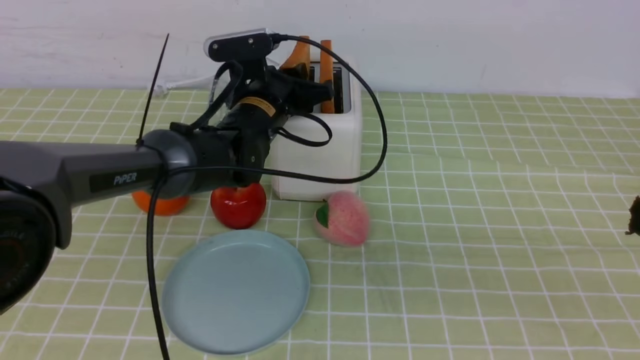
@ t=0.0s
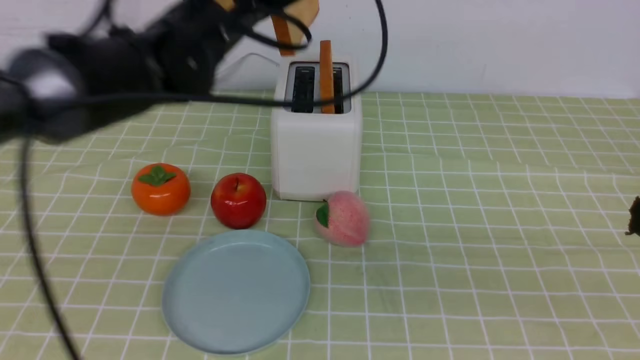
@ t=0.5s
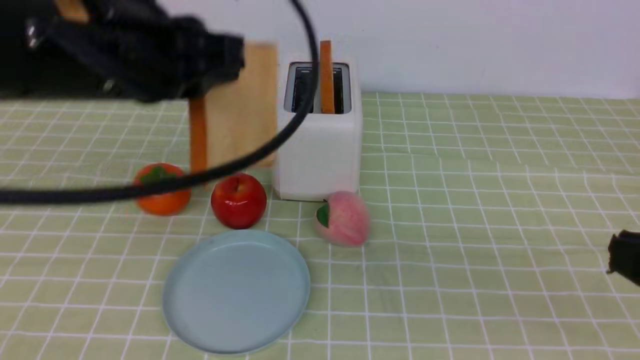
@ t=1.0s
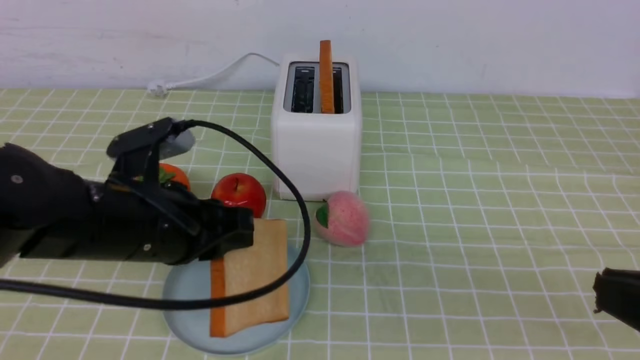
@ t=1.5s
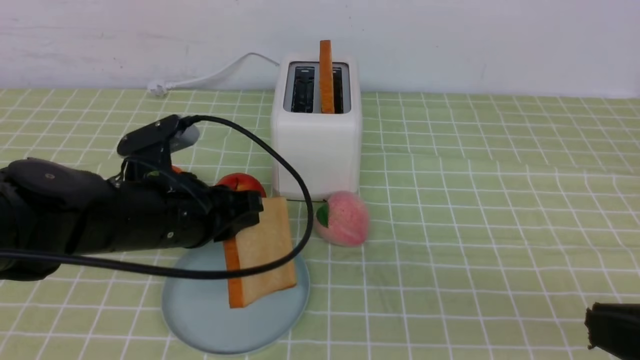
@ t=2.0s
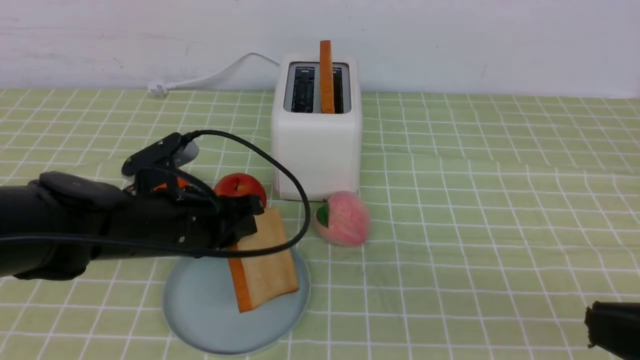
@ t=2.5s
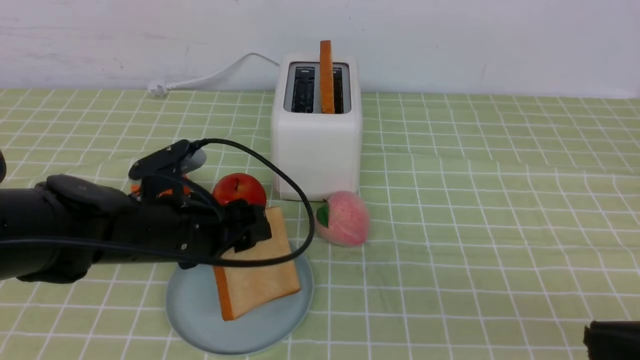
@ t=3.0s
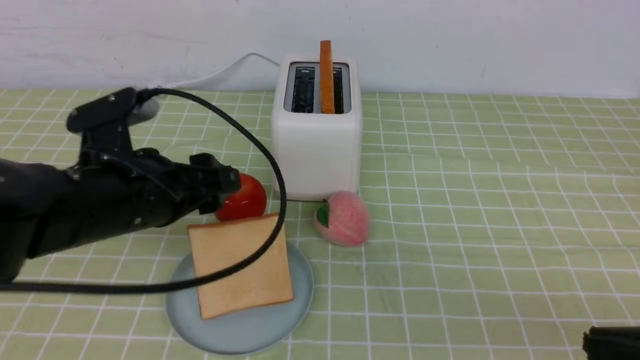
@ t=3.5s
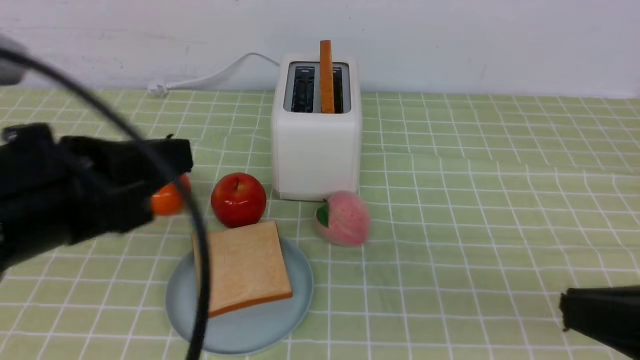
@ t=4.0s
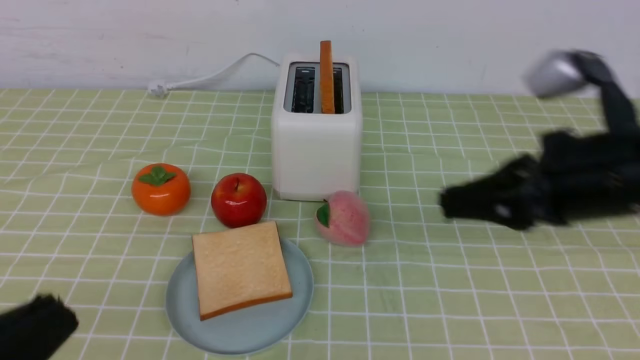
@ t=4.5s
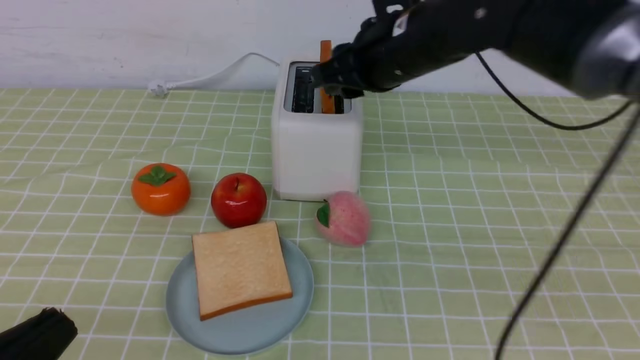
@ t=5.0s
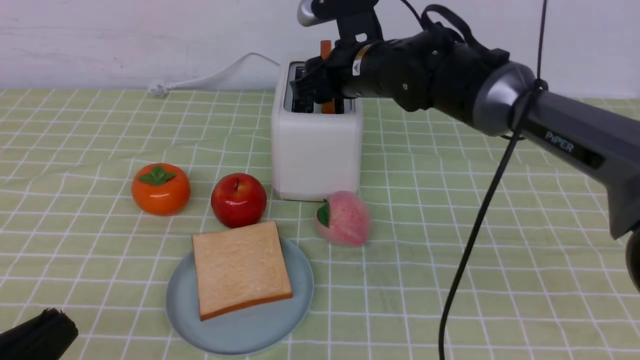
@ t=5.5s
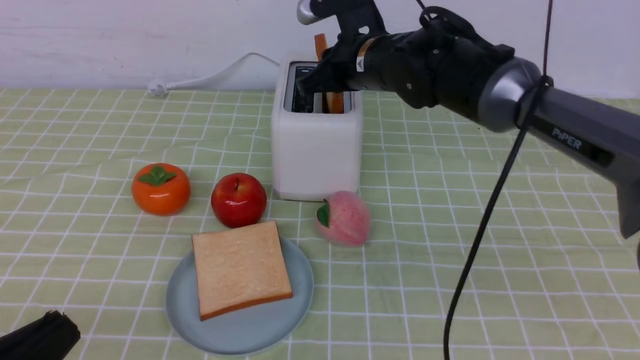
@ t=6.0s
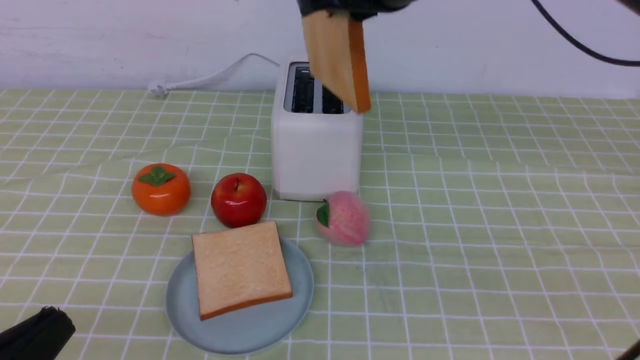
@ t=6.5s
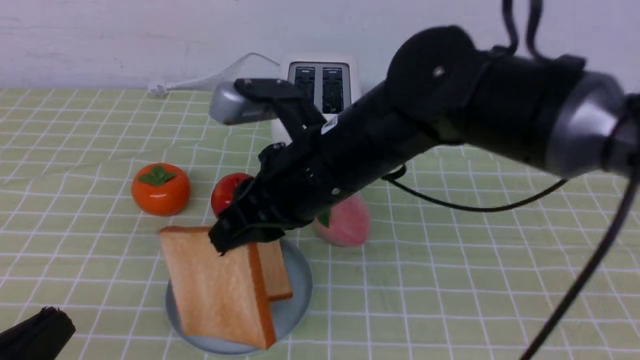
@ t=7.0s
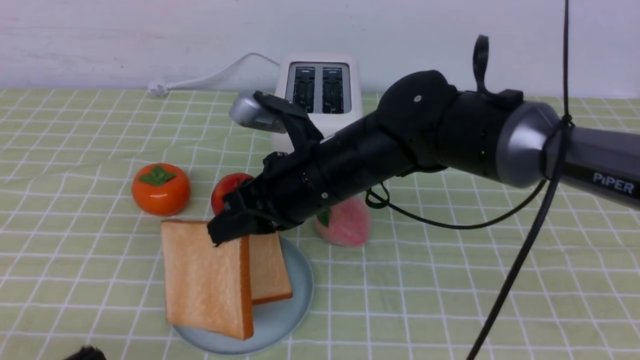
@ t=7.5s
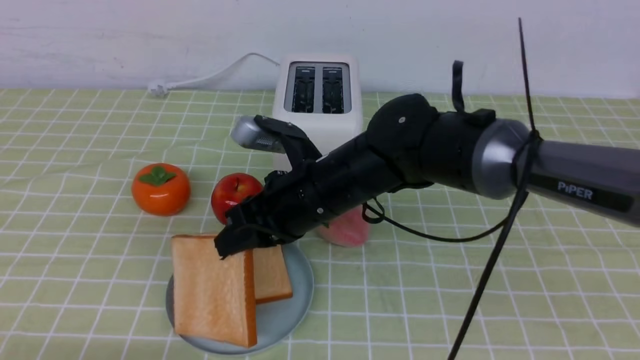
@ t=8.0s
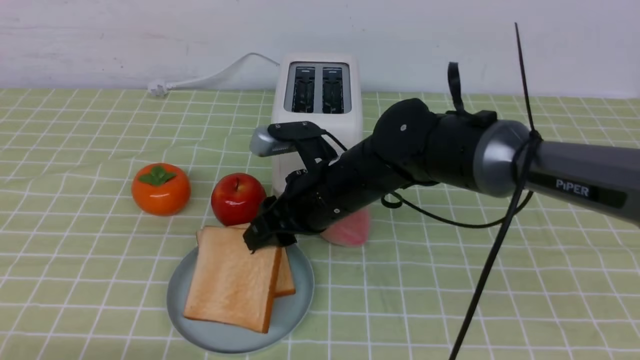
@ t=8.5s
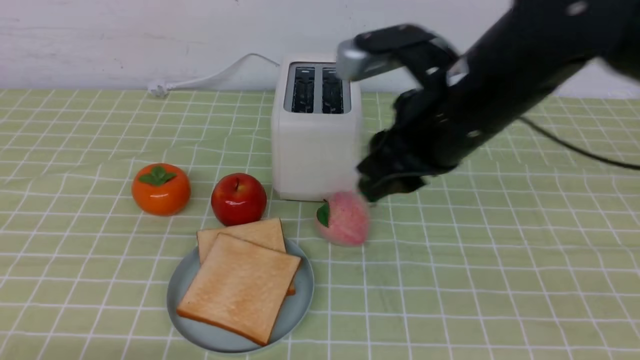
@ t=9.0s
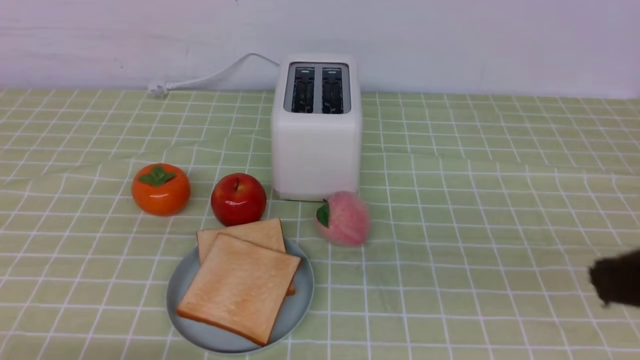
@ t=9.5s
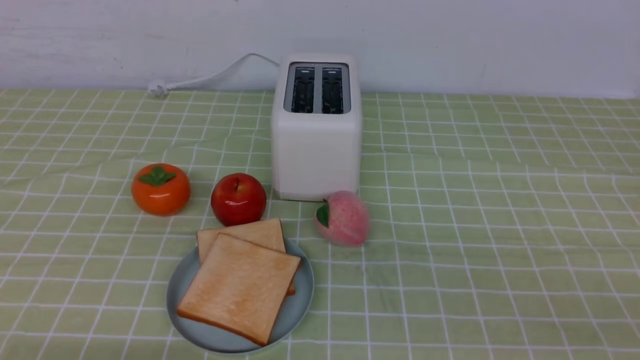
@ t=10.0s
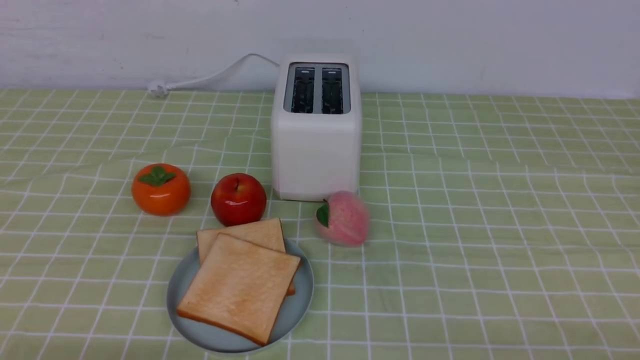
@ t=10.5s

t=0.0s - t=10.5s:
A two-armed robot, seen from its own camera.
Task of the whole recording: take toasted bread from bread machine on green coffee tablecloth place on plate.
Step, t=1.0s - t=3.5s: use the left arm to put a slice of bread into the empty plate.
Step, t=4.0s - t=6.0s: use the right arm to take out a slice of bread.
Step, t=6.5s - t=9.0s: use the right arm to put a slice of bread into the plate.
t=0.0s - t=2.0s: The left gripper travels backward and to the left by about 20 cm.
t=2.0s - t=4.0s: The left gripper travels backward and upward by some 20 cm, and opens, then closes once more.
t=4.0s - t=6.5s: The right gripper heads forward, to the left and upward, covering some 30 cm, and opens, then closes again; the left gripper shifts some 15 cm downward and backward.
t=6.5s - t=8.5s: The right gripper shifts roughly 20 cm downward, and opens up; the left gripper is displaced downward by about 5 cm.
t=8.5s - t=10.5s: The right gripper moves backward and to the right, about 40 cm, and closes.
